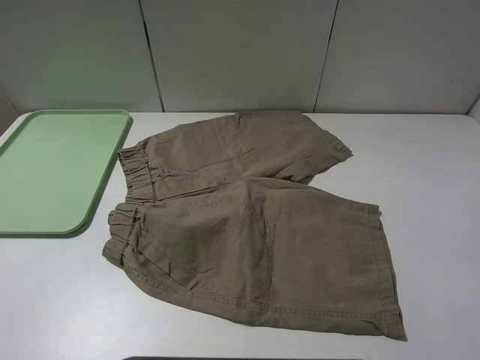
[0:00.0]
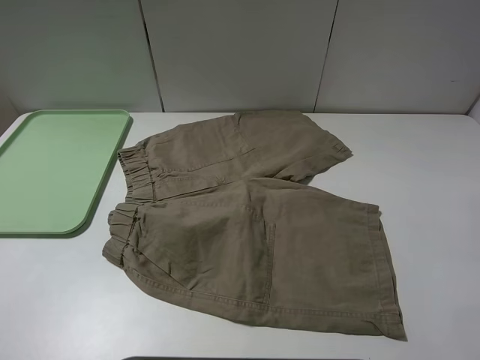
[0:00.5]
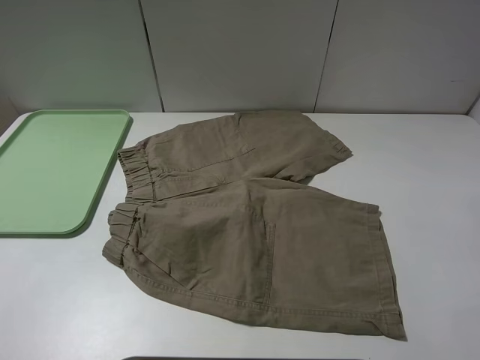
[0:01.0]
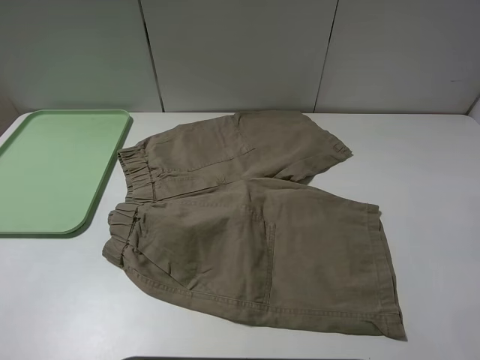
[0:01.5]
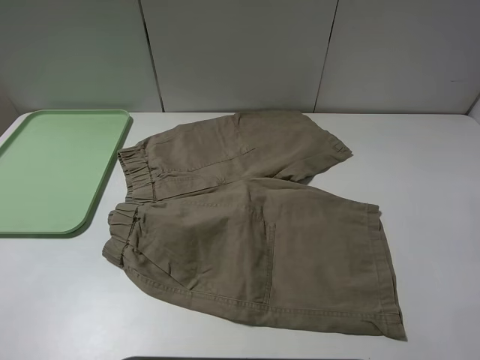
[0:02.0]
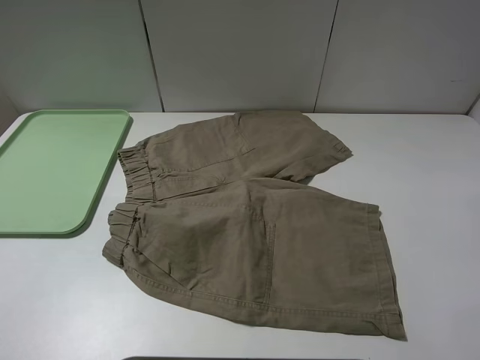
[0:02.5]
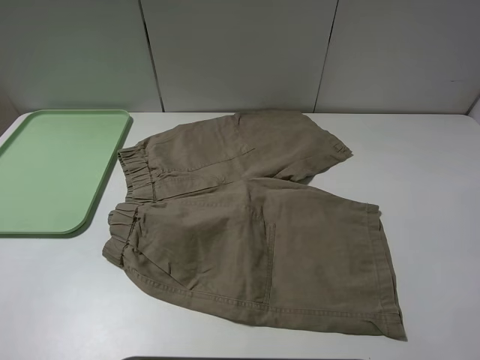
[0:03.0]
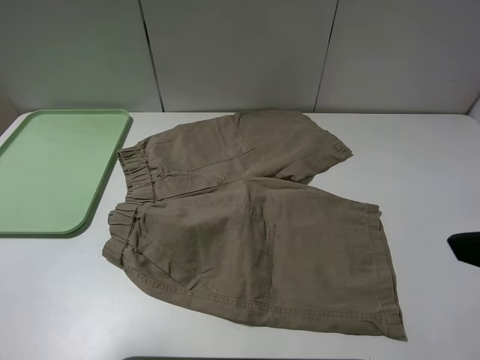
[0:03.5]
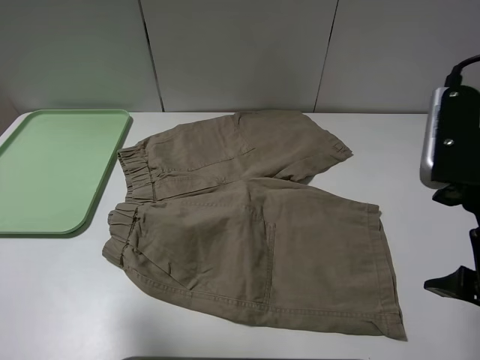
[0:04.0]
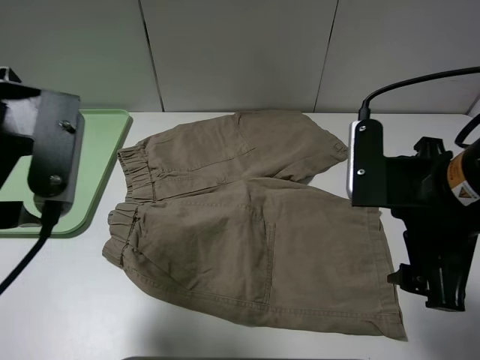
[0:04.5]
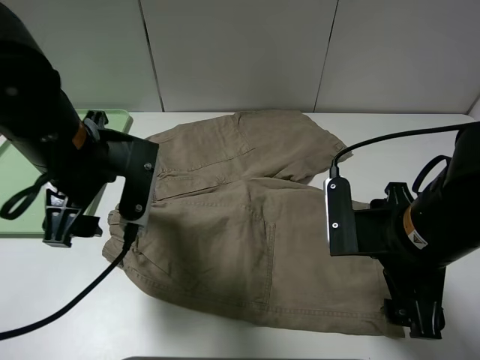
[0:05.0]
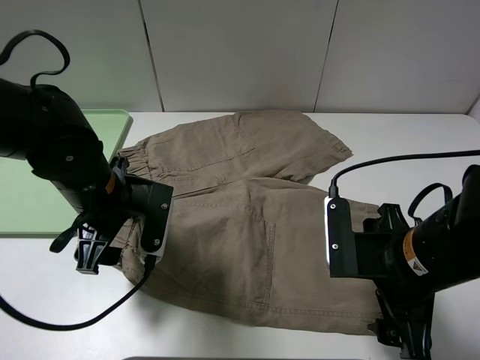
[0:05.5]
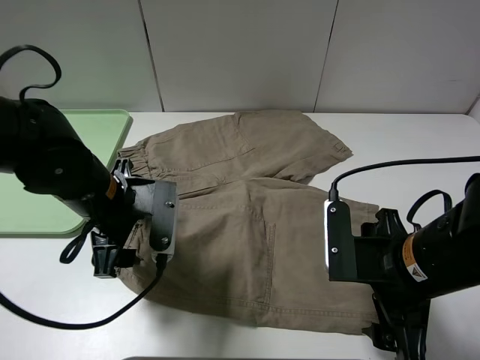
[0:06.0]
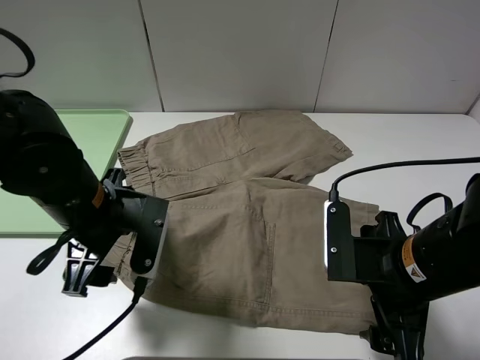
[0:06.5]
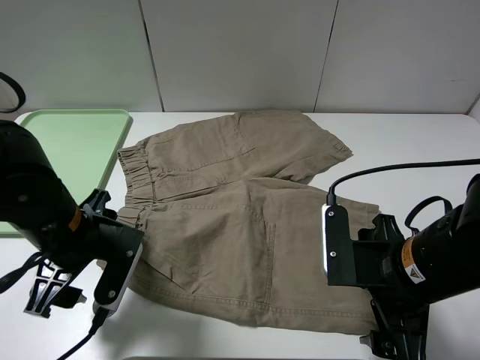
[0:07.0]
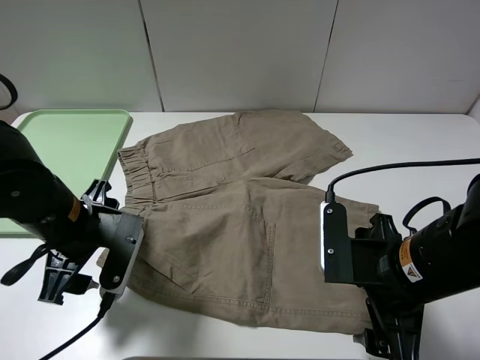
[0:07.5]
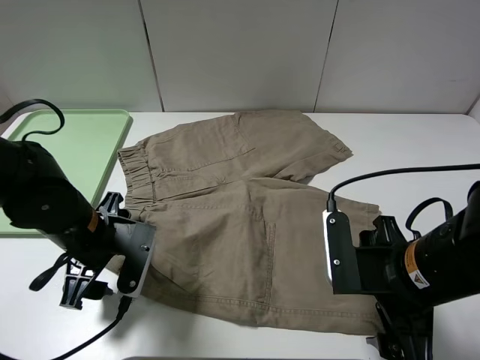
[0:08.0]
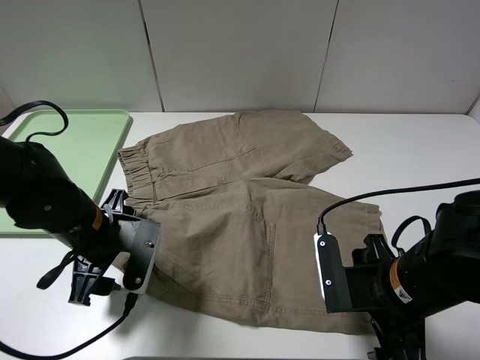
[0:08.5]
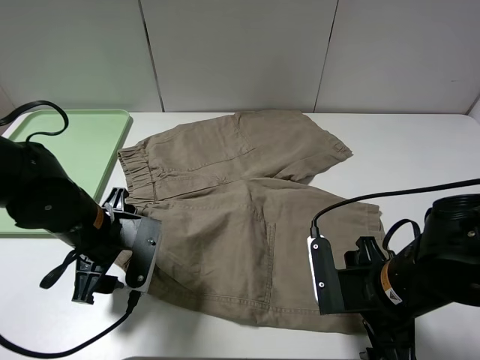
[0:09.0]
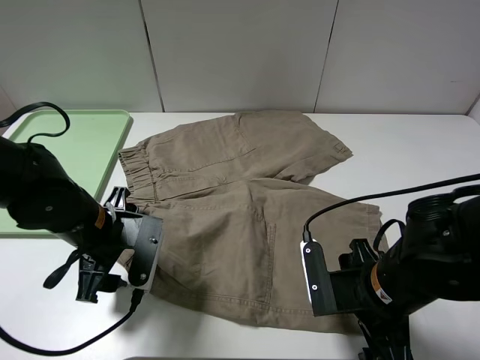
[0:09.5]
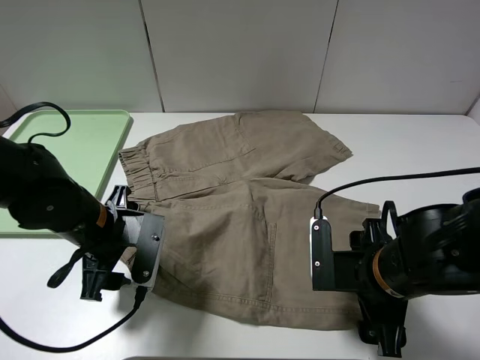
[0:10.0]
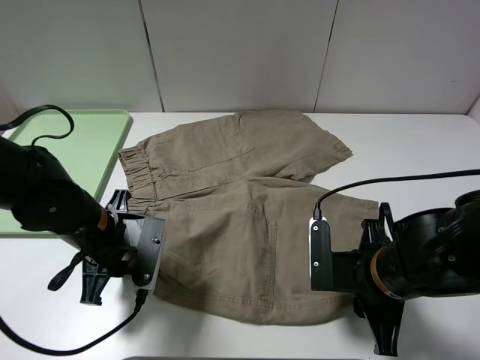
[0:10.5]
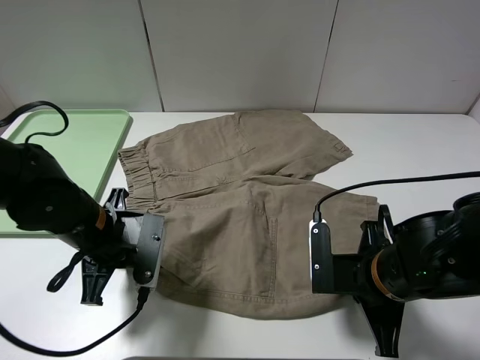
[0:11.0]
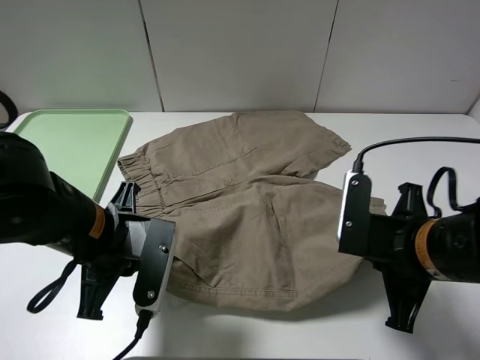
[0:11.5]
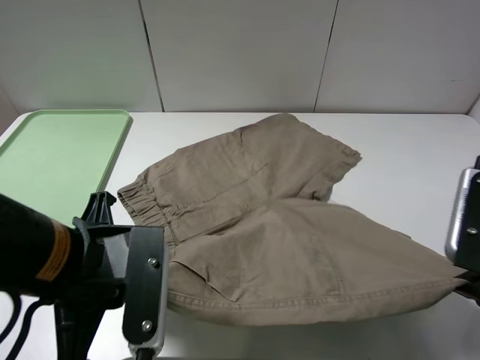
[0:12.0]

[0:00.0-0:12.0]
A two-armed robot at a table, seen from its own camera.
Task of the whole recording: fold the khaki jeans in half with two grippers, then fold them in half again, and use the left claw to place the folded fold khaki jeans on the tray.
Step, 0:00.0 to 0:10.5: Grasp the khaki trousers with the left gripper.
0:00.0 to 0:02.0: Neither gripper changes place.
0:02.0 to 0:04.0: The right gripper heads forward and to the left, covering approximately 15 cm; the left gripper travels forward and to the right by about 15 cm.
0:04.0 to 0:06.0: The left gripper shifts approximately 20 cm downward, forward and to the right; the right gripper travels downward by approximately 10 cm.
0:06.0 to 0:08.0: The left gripper moves some 5 cm.
0:08.0 to 0:10.0: The right gripper ends up roughly 5 cm from where it was.
0:10.0 to 0:12.0: The right gripper shifts approximately 15 cm upward, to the right and backward, and closes, while the left gripper shifts approximately 15 cm backward and upward, and closes up.

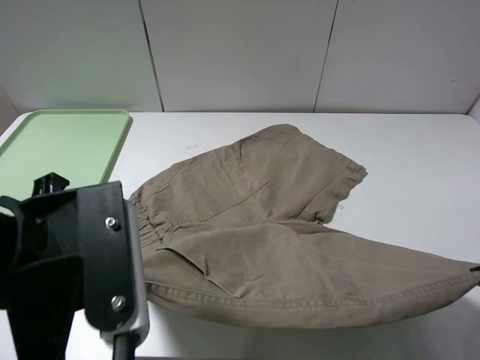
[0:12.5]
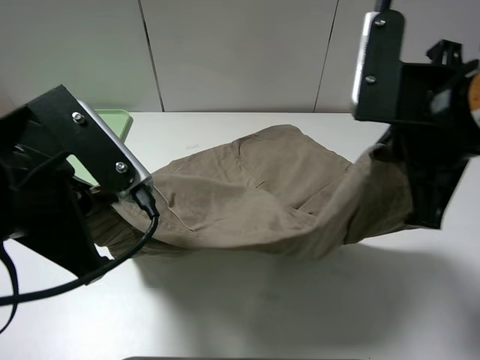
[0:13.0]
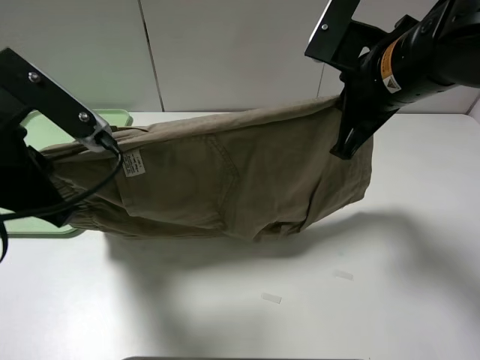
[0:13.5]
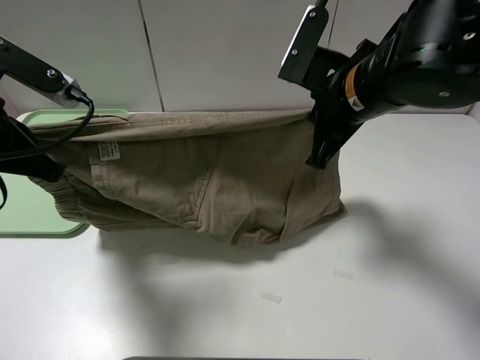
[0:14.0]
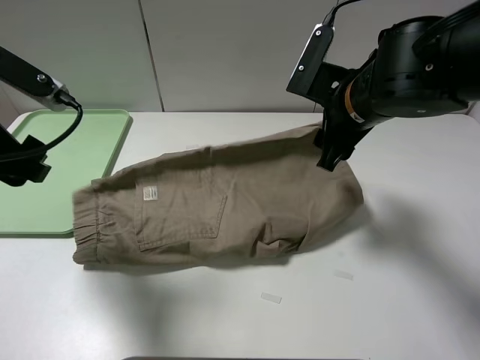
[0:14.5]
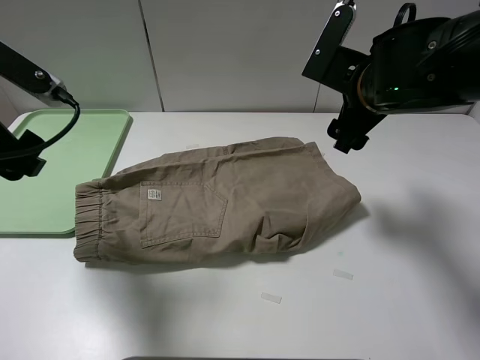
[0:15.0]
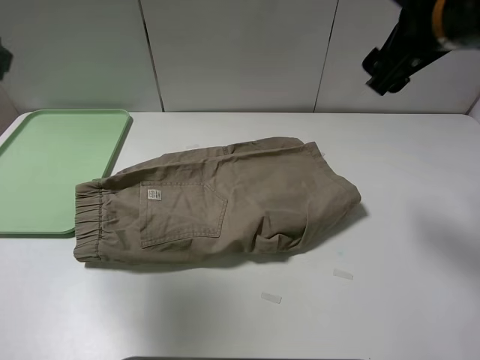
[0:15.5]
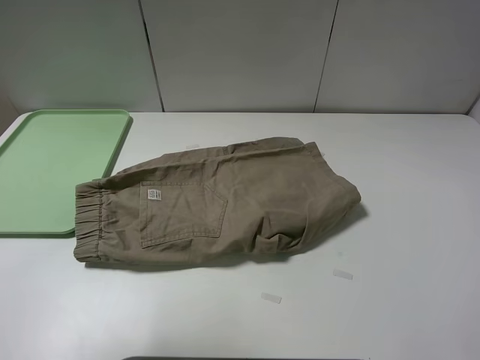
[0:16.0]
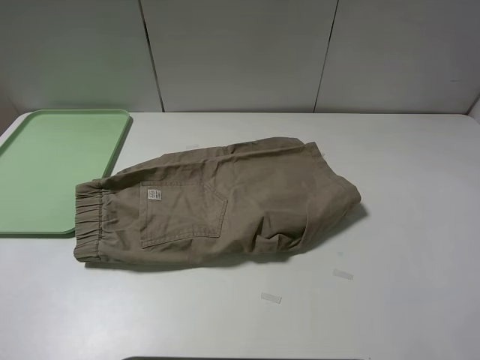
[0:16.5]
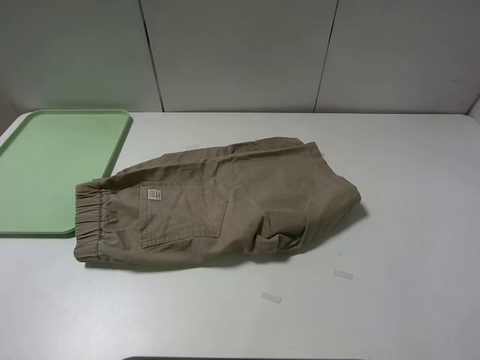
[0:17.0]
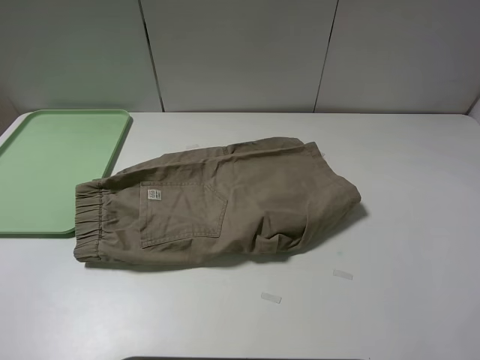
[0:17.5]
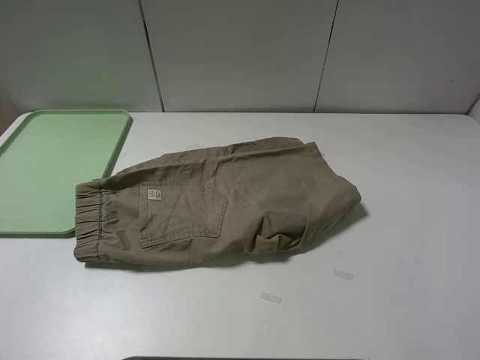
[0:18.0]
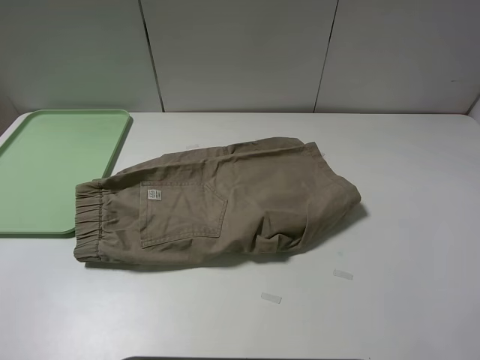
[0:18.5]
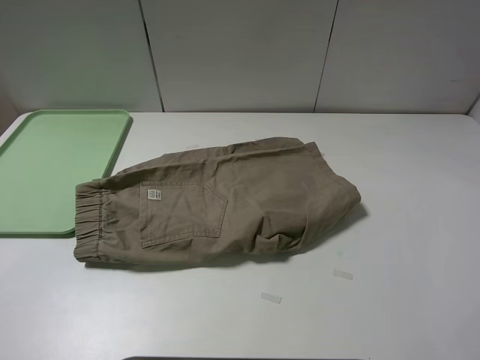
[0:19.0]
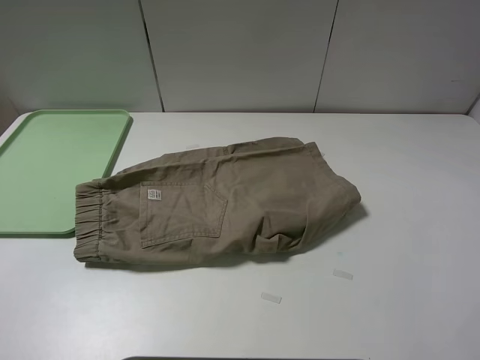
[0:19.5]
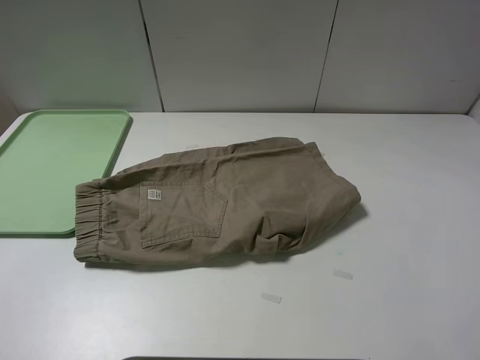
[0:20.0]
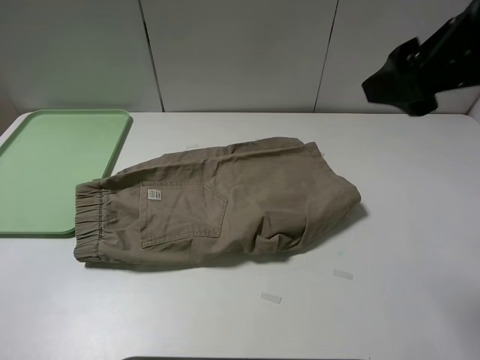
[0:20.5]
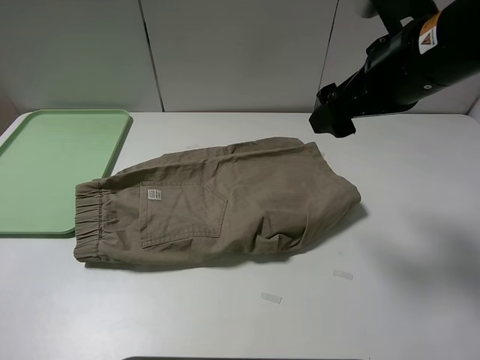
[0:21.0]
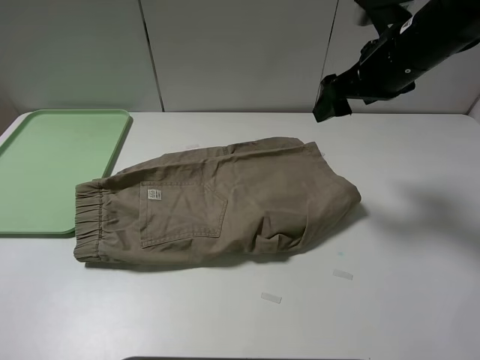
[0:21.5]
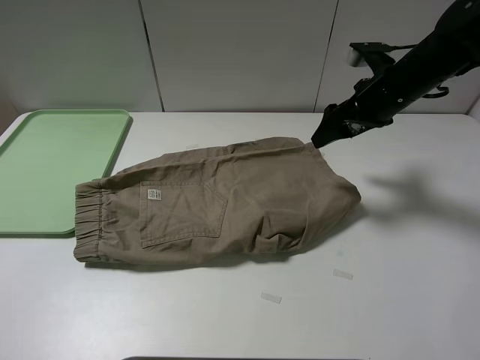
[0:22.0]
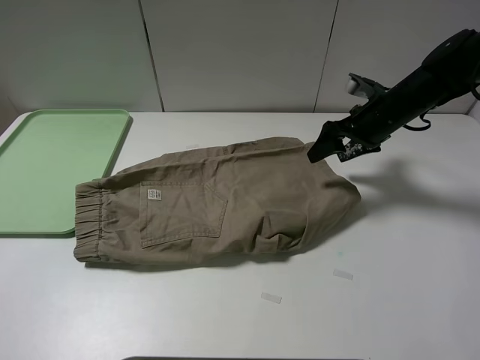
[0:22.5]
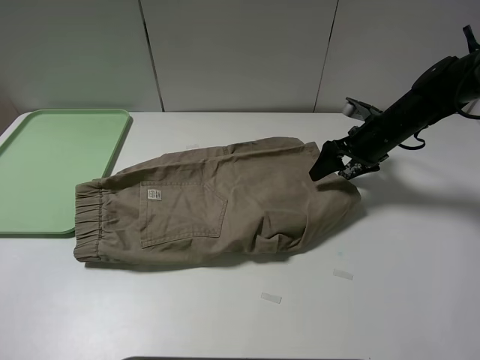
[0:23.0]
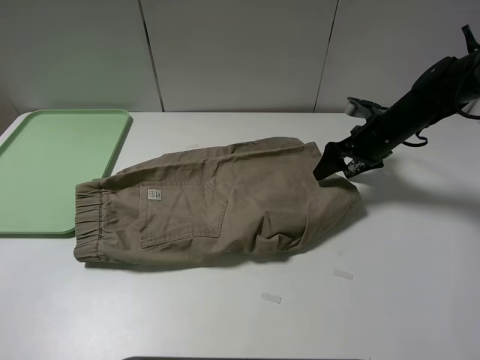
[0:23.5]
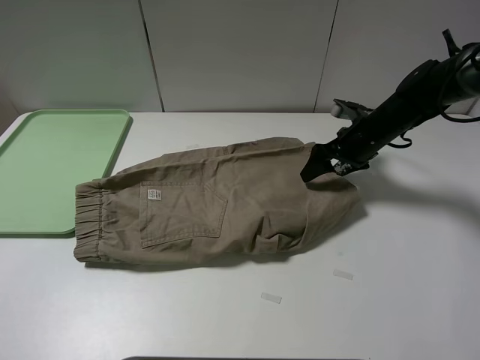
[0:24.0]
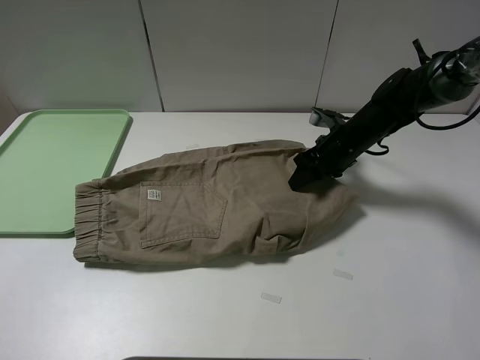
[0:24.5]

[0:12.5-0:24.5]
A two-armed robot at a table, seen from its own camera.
Task of the whole recording: fold the khaki jeans in half with two grippers, then fold them in half again, and use the left claw to place the folded fold khaki jeans on the tray.
Step, 0:12.5 to 0:14.5: Fold the khaki trousers upwards with the left gripper.
0:12.5 to 0:14.5: The right gripper is displaced forward and to the left by roughly 25 cm, and opens up, while the left gripper moves forward and to the left, roughly 15 cm, and opens.
0:14.5 to 0:16.5: The right gripper shifts some 30 cm upward, backward and to the right. Meanwhile the left gripper shifts roughly 25 cm upward, backward and to the left.
0:18.5 to 0:20.5: The right gripper shifts some 10 cm downward, forward and to the left.
0:20.5 to 0:22.5: The right gripper moves forward and downward, roughly 30 cm.
0:22.5 to 0:24.5: The right gripper travels downward by some 5 cm, and closes.

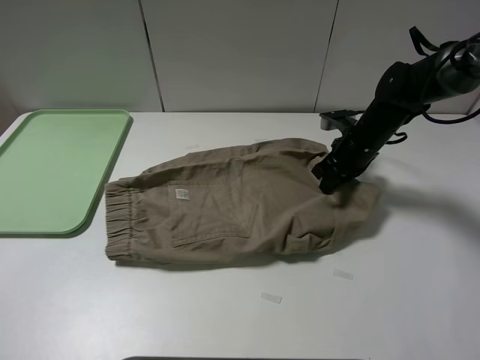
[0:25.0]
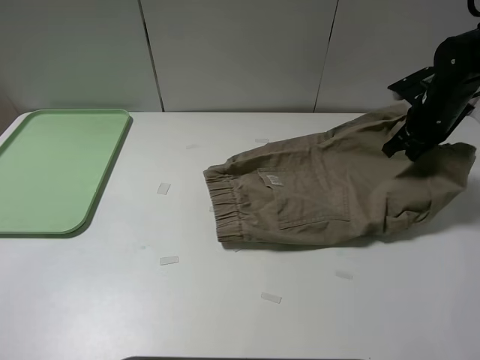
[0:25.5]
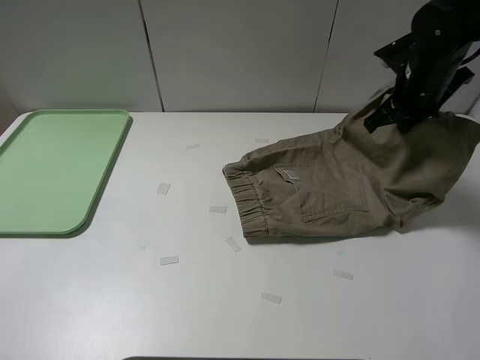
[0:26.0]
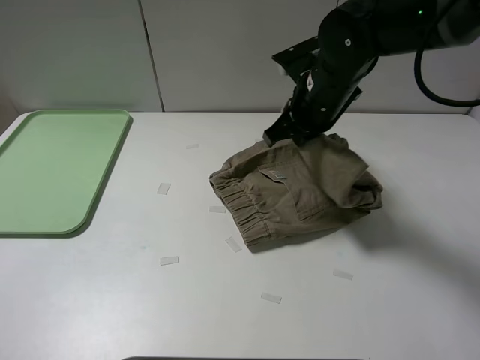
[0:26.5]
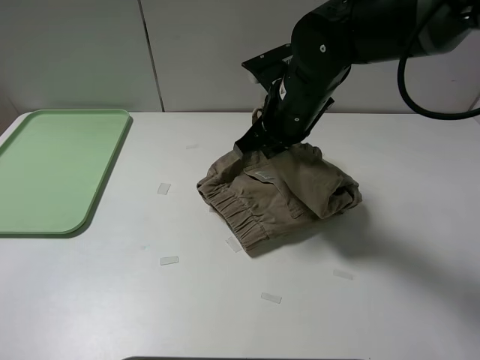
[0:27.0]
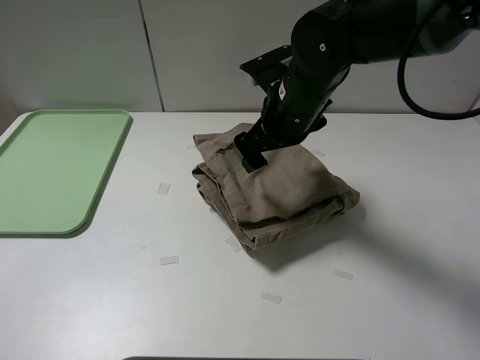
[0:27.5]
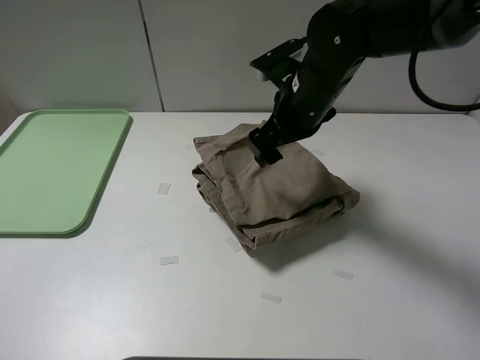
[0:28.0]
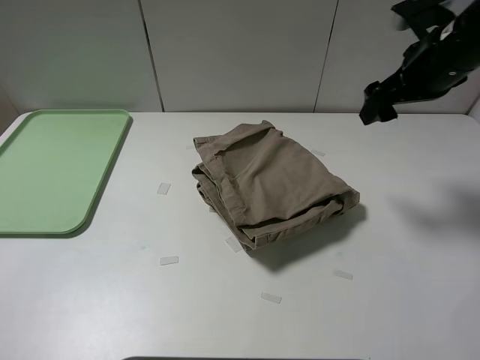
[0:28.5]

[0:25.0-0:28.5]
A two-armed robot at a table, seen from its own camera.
Task of the whole recording: fold the khaki jeans in half with two grippers, then fold them in half again, and use the left claw to place the folded fold khaki jeans on the tray.
Step, 0:25.0 to 0:27.5: Fold the khaki trousers from right to left with the right gripper.
0:25.0 to 0:27.0: The right gripper is displaced to the left, upward and backward by about 20 cm.
0:27.0 to 0:28.5: The right gripper is displaced to the right by approximately 20 cm, and opens its fingers.
